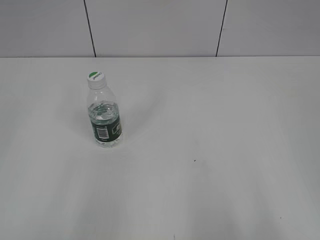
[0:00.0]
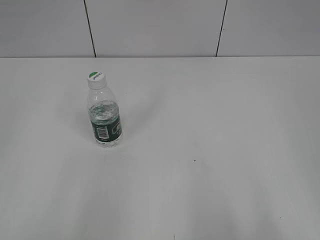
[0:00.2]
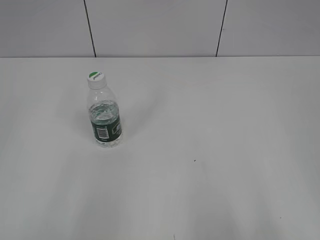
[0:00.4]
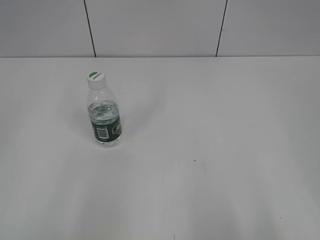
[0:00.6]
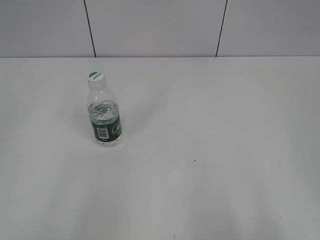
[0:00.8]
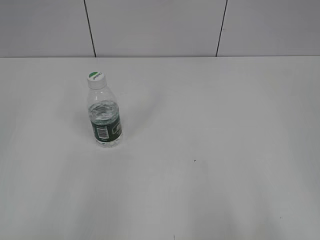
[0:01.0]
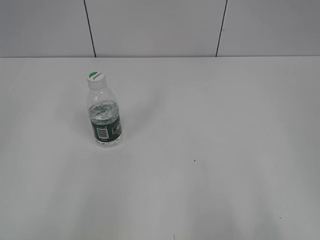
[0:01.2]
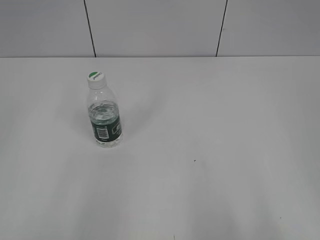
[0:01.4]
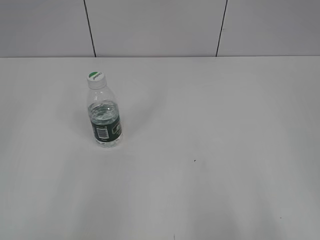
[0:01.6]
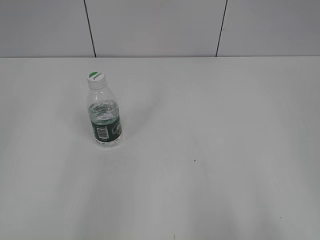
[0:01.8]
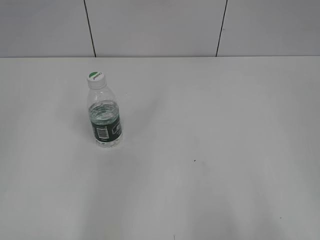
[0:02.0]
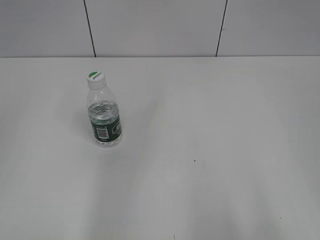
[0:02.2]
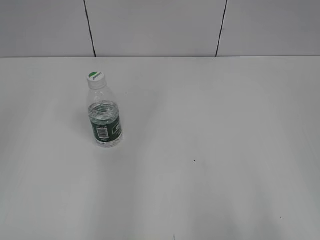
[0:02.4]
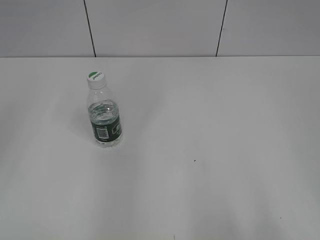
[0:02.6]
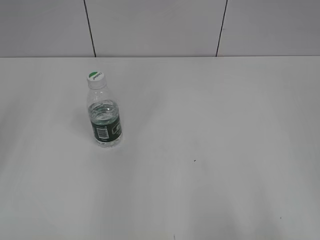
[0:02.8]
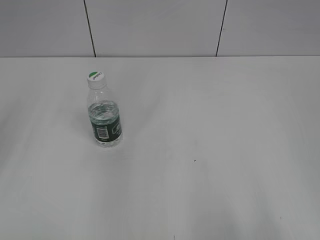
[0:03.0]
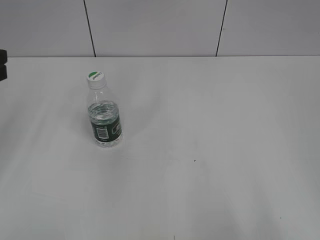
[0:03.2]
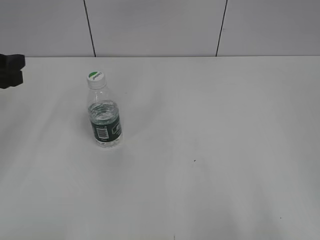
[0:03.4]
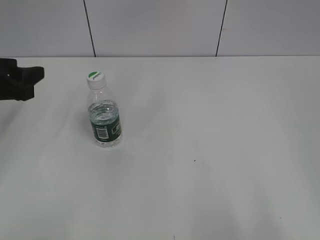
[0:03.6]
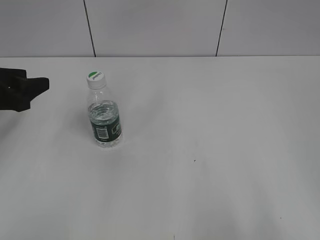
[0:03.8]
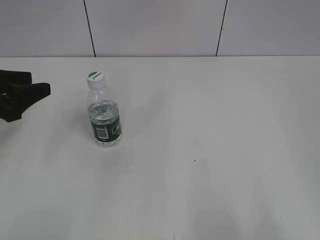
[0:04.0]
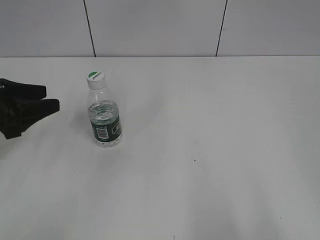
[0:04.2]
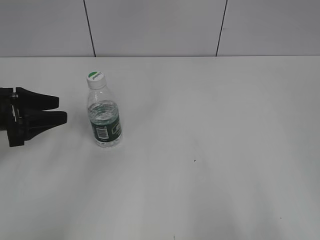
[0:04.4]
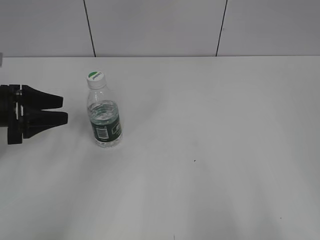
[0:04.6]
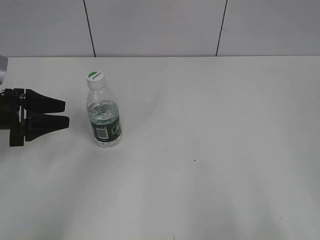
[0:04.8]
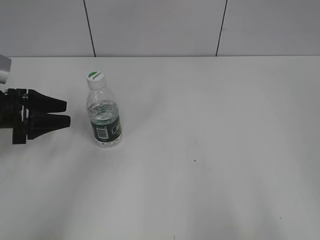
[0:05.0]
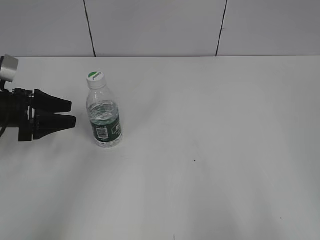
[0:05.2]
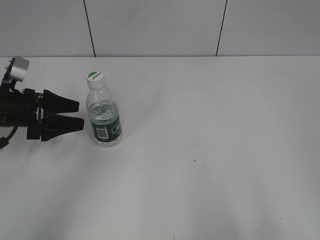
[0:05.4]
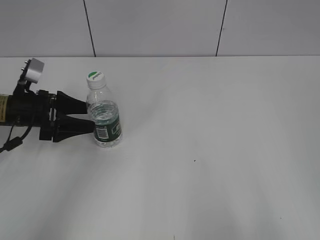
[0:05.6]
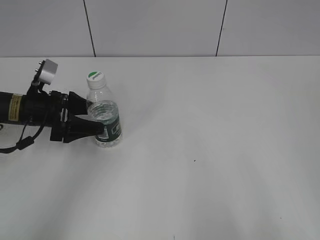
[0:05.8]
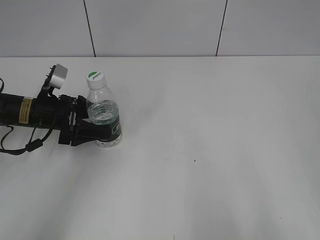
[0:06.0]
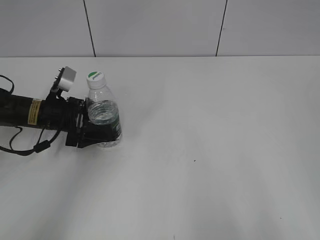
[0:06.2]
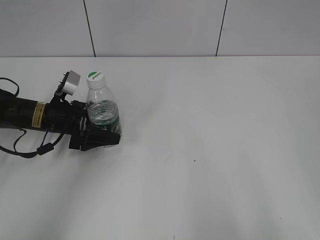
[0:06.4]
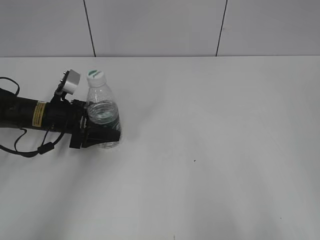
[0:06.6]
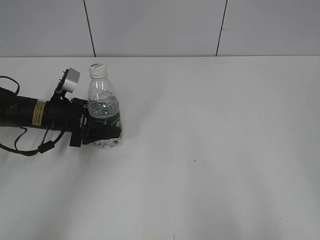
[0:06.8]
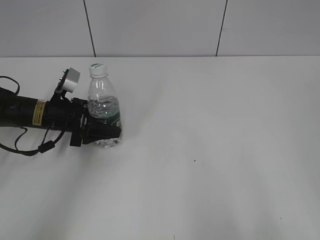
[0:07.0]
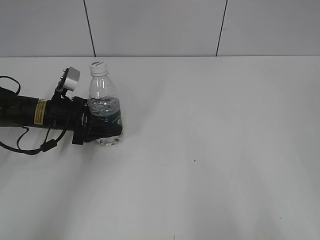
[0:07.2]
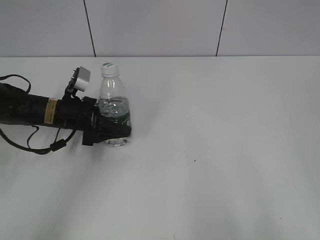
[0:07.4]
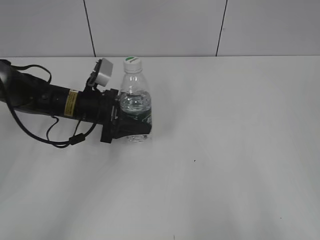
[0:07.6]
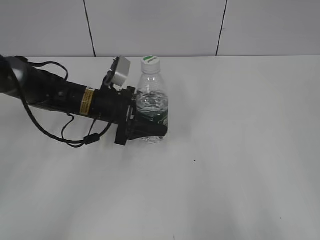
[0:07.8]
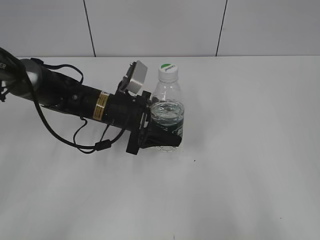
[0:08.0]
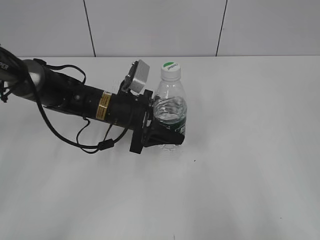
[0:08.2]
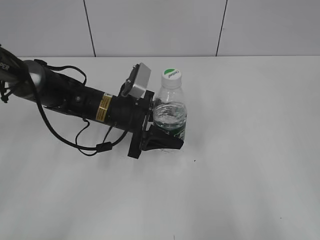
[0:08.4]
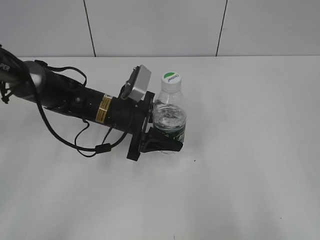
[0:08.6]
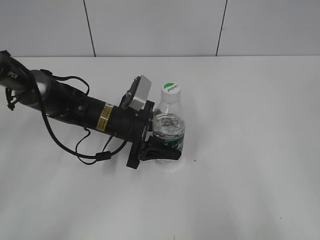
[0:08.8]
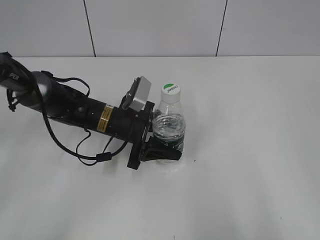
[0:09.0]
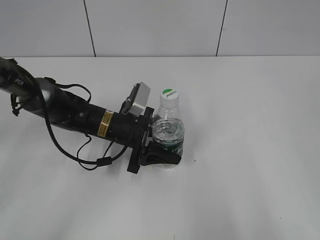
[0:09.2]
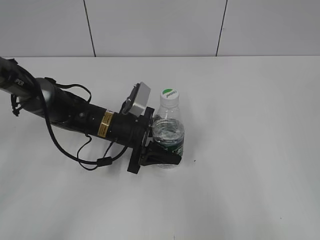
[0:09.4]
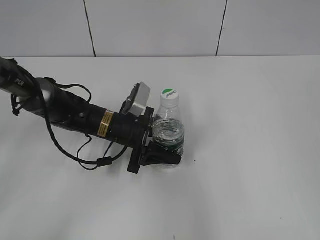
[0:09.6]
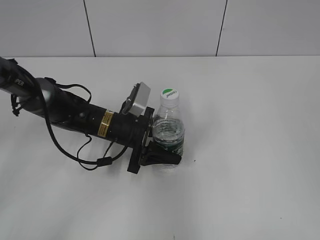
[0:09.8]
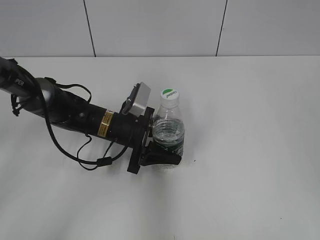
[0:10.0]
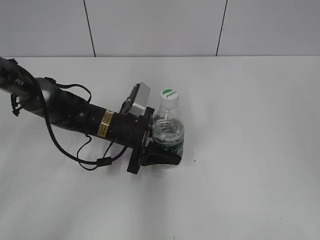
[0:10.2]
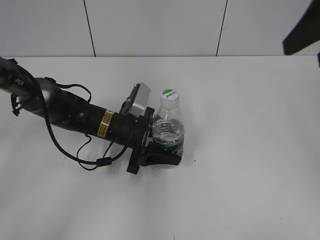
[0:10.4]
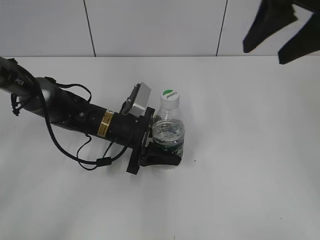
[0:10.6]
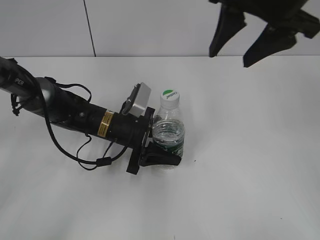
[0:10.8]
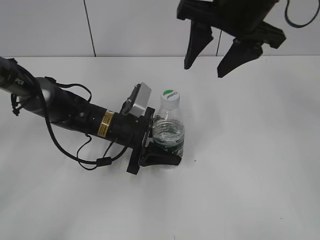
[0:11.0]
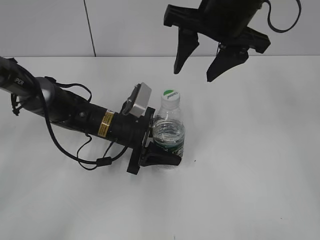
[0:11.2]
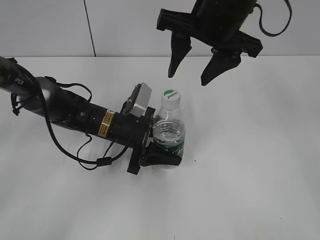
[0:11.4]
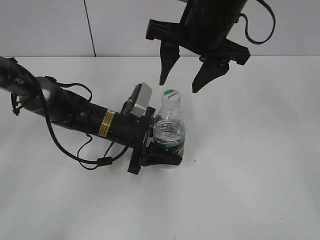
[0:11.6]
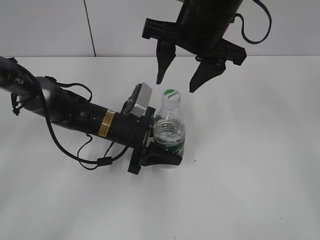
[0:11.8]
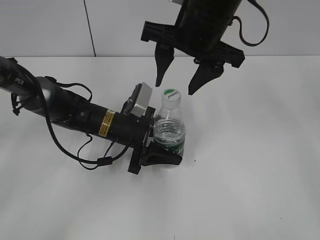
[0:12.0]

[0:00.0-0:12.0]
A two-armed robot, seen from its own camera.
Step, 0:00.0 to 0:06.6: Grasp the bottle and move it to the center of the table with the left gripper.
Step, 0:06.8 to 0:09.4: Lift the bottle and move it to the center of the table with the left gripper.
0:03.0 to 0:04.4: The left gripper heads downward and forward, covering some 15 cm.
0:04.4 to 0:06.0: The left gripper moves forward, downward and to the right, about 10 cm, and opens its fingers.
0:06.0 to 0:07.6: The left gripper heads to the right, covering approximately 10 cm, and closes up.
0:07.6 to 0:09.0: The left gripper goes about 5 cm to the right.
0:09.0 to 0:10.4: The right gripper goes roughly 25 cm forward.
0:10.4 to 0:12.0: The right gripper is displaced to the left, downward and forward by roughly 20 cm.

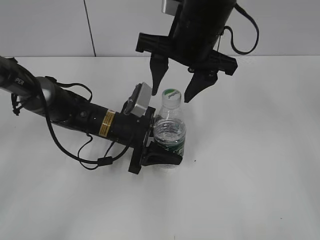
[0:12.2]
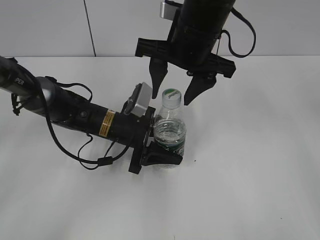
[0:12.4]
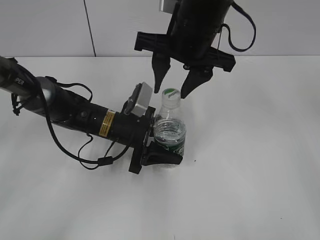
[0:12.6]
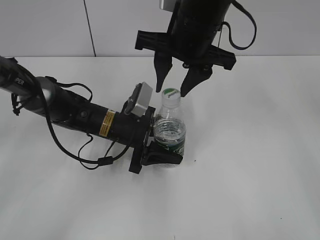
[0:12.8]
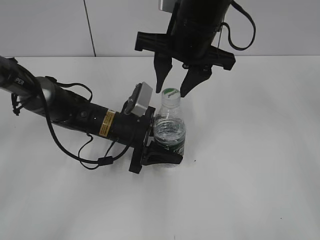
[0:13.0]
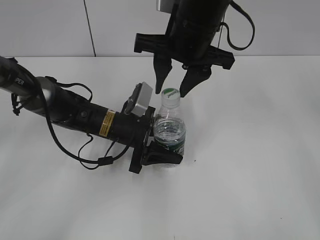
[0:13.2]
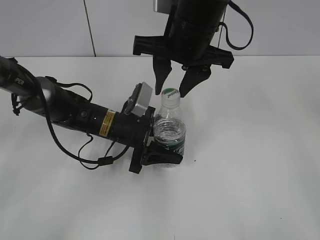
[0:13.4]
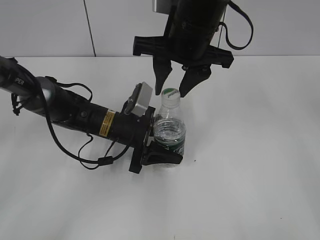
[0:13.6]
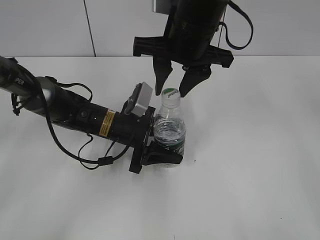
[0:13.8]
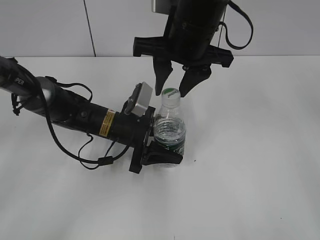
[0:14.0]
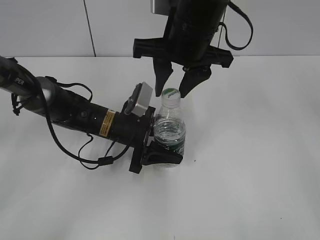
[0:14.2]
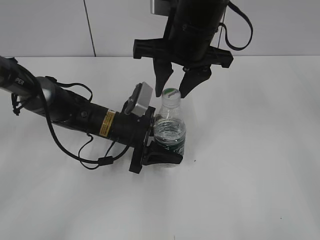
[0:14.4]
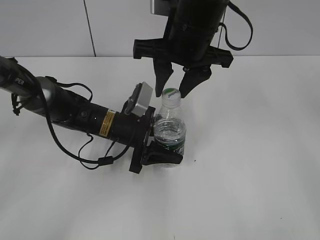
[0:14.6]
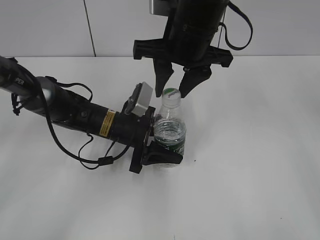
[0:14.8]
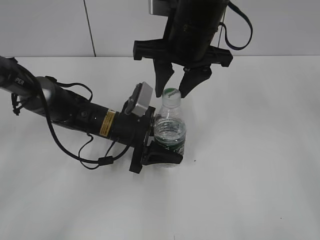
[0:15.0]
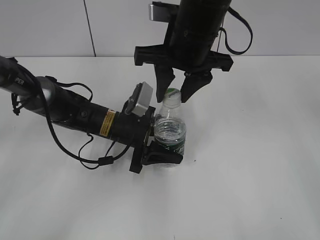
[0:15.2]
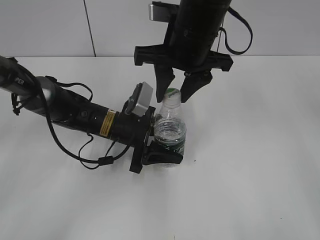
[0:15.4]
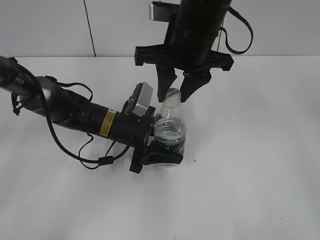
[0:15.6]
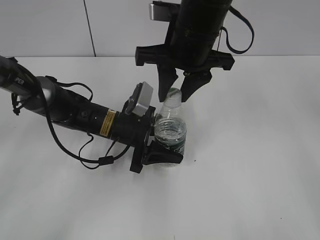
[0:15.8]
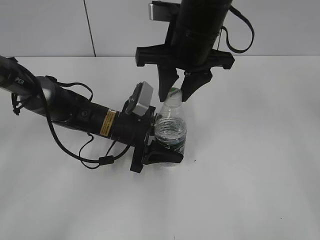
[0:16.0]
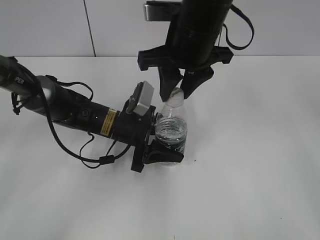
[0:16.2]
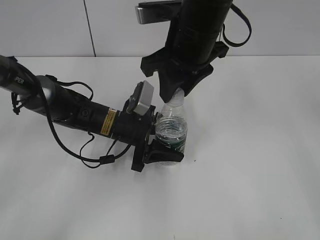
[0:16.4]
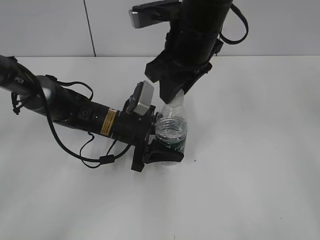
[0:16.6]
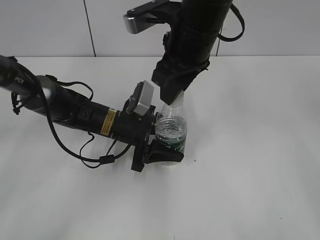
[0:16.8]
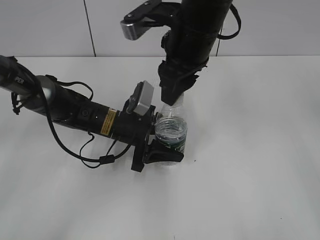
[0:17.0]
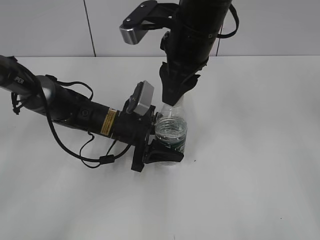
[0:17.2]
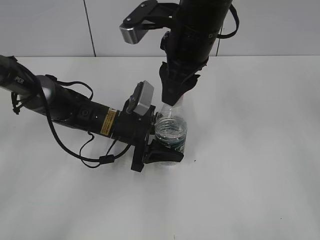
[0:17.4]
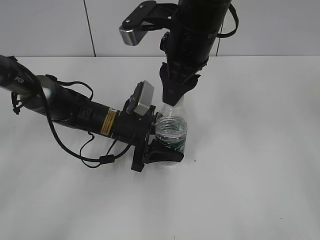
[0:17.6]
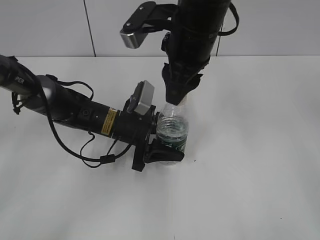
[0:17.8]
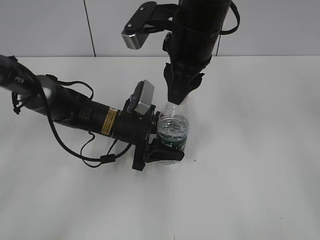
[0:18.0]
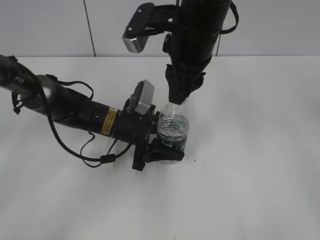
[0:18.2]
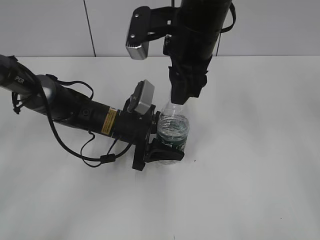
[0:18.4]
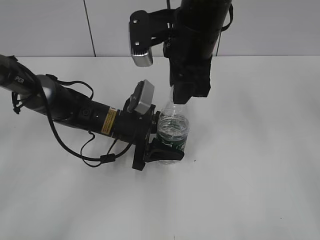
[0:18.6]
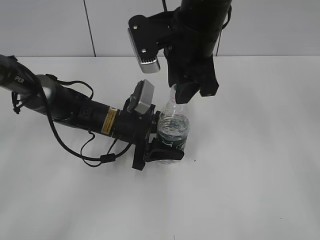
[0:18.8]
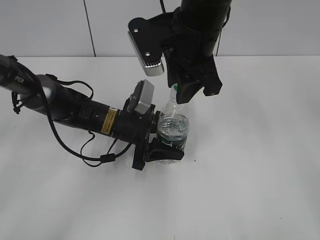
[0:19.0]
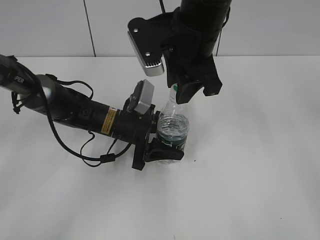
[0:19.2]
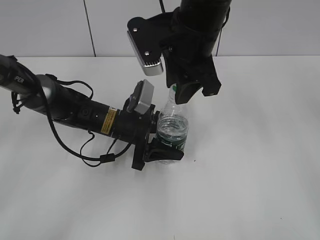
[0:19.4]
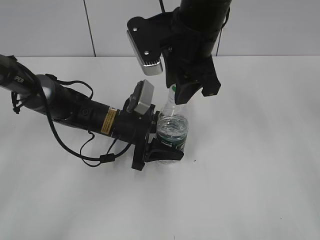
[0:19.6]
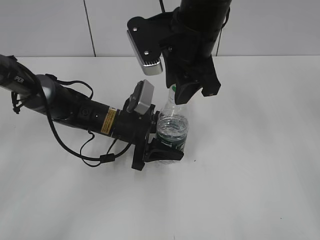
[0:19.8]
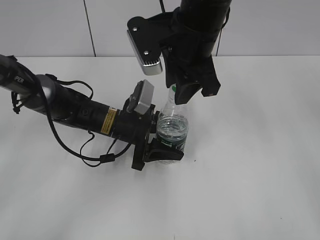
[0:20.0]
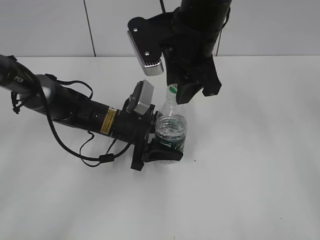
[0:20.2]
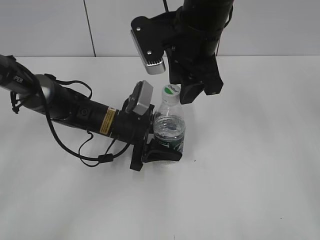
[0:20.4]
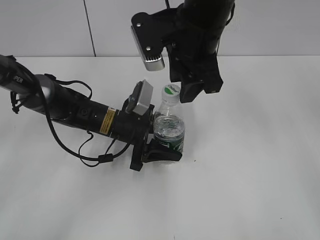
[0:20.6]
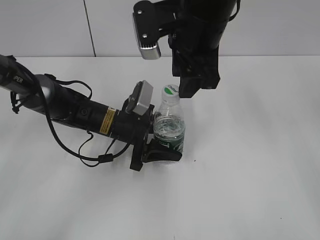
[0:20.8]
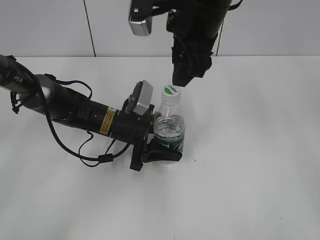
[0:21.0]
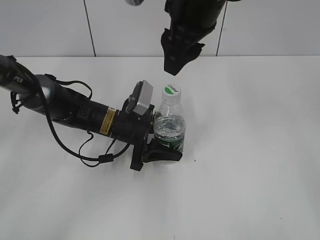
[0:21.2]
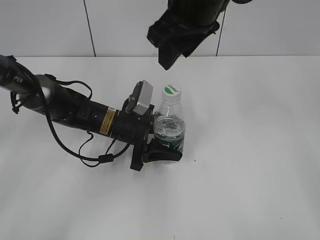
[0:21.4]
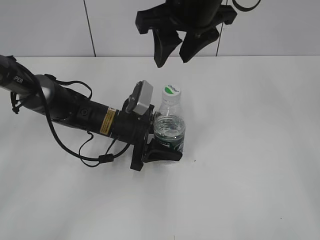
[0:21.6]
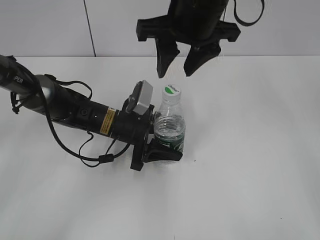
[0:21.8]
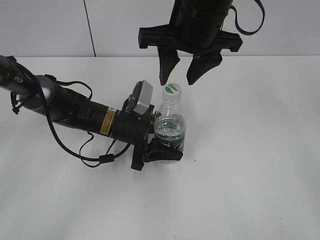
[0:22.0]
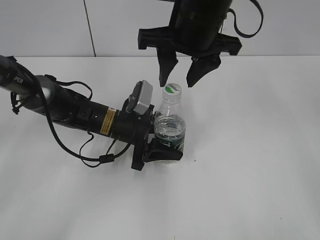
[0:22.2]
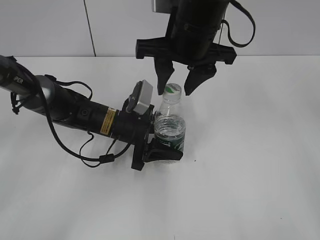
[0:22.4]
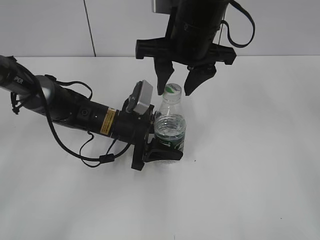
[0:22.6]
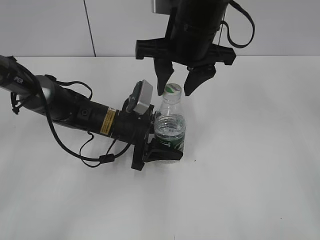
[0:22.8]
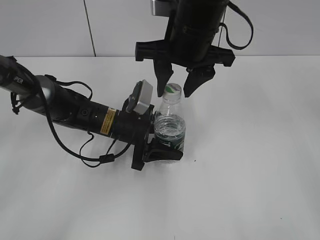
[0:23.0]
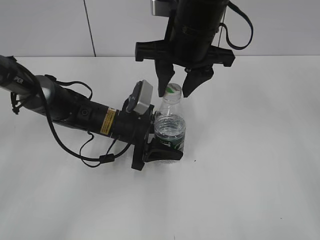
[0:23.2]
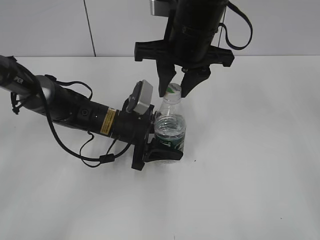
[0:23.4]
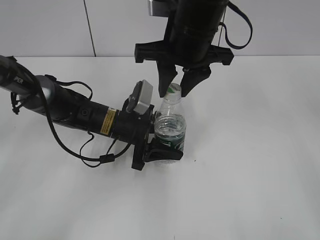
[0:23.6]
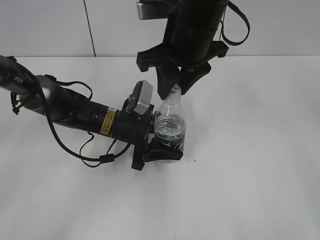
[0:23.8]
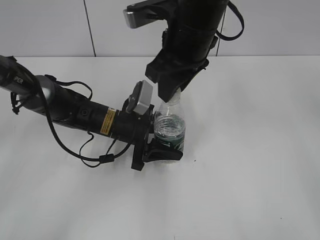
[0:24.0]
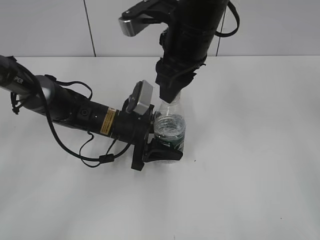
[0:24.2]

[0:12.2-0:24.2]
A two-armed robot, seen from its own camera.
0:12.2 to 0:13.8: The right gripper closes.
0:13.8 to 0:15.2: Neither gripper changes place.
0:19.8 to 0:21.2: The right gripper opens its fingers.
0:22.6 to 0:24.2: The right gripper closes.
